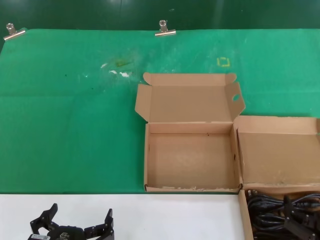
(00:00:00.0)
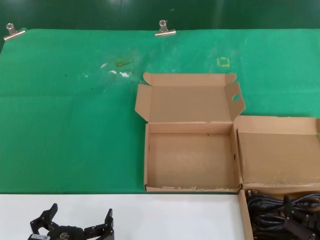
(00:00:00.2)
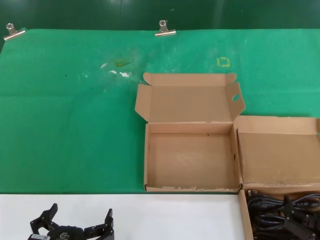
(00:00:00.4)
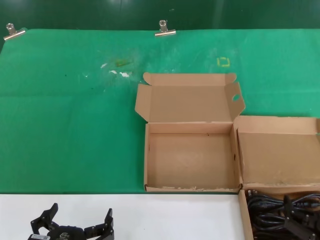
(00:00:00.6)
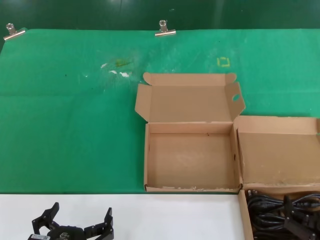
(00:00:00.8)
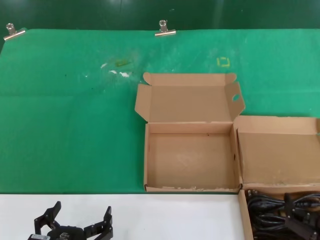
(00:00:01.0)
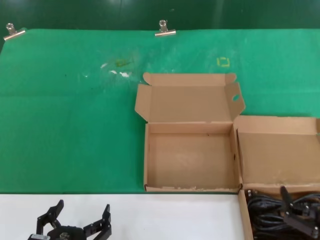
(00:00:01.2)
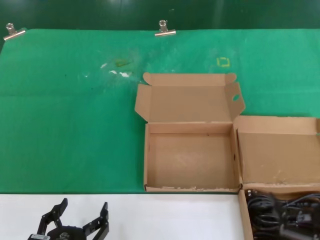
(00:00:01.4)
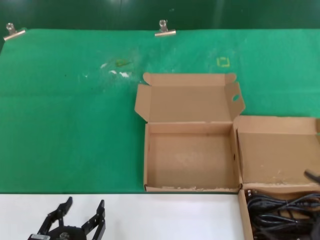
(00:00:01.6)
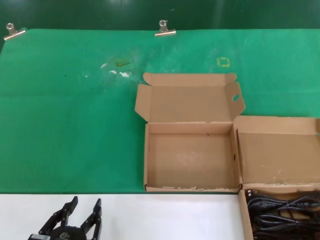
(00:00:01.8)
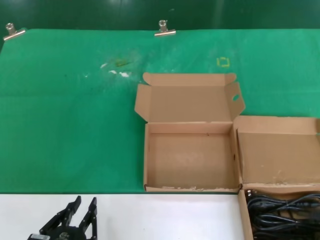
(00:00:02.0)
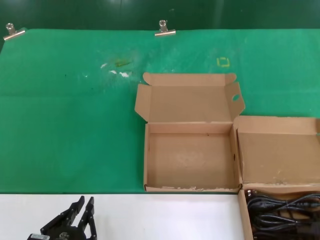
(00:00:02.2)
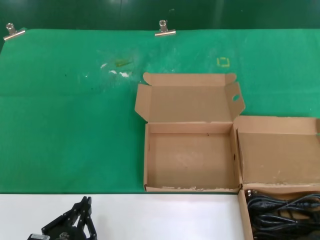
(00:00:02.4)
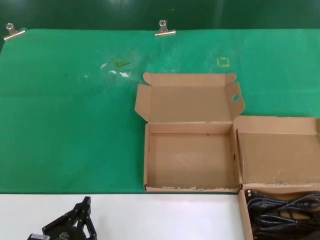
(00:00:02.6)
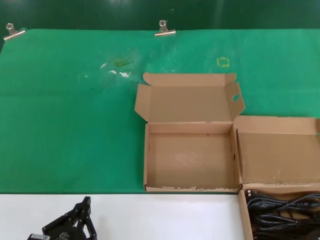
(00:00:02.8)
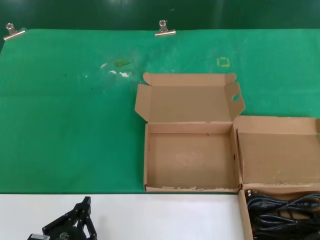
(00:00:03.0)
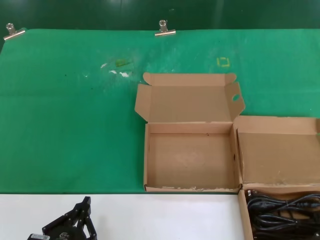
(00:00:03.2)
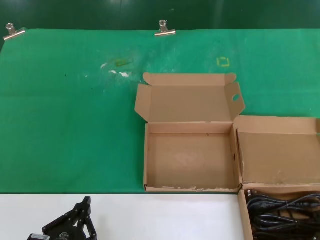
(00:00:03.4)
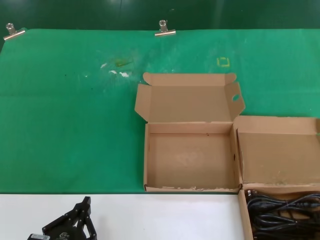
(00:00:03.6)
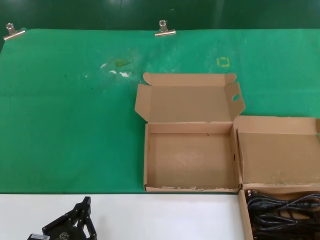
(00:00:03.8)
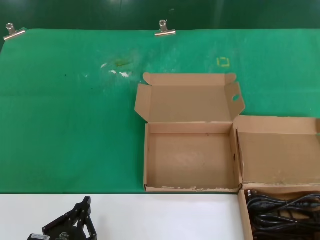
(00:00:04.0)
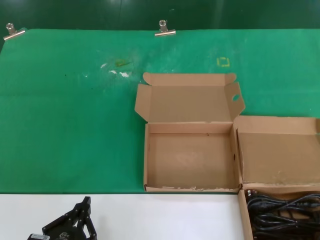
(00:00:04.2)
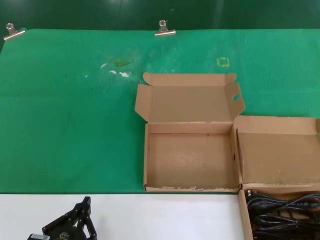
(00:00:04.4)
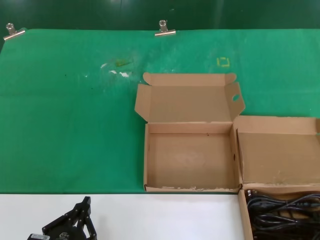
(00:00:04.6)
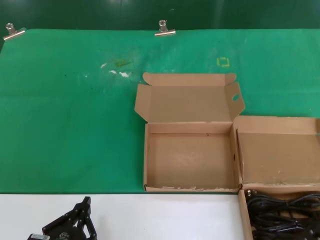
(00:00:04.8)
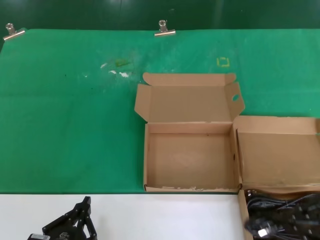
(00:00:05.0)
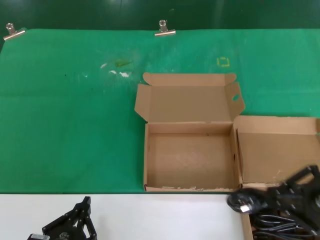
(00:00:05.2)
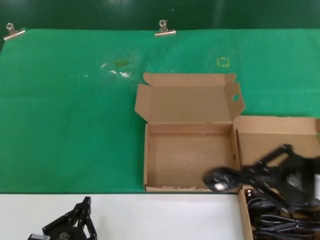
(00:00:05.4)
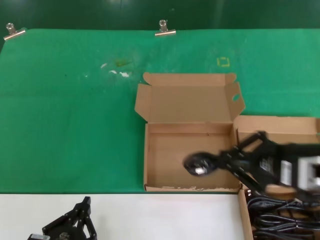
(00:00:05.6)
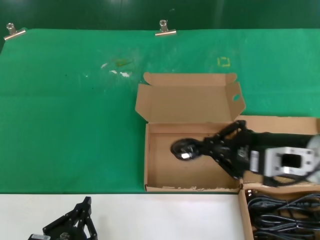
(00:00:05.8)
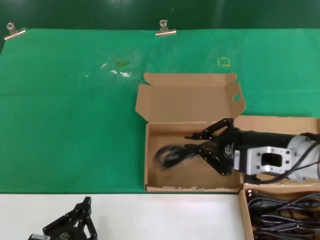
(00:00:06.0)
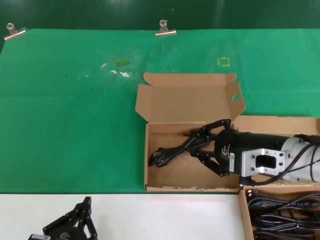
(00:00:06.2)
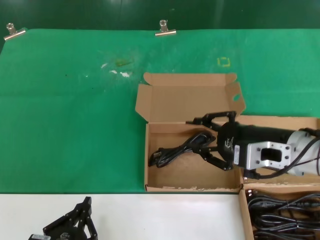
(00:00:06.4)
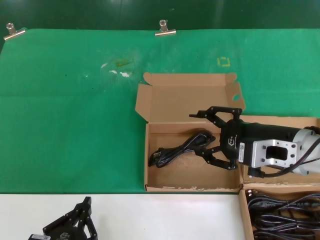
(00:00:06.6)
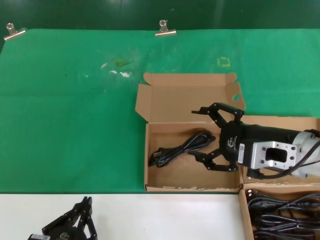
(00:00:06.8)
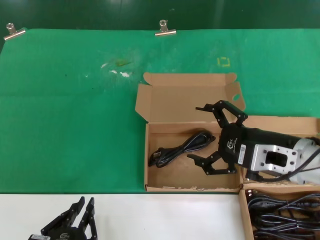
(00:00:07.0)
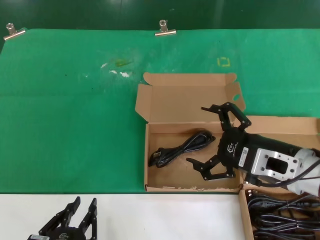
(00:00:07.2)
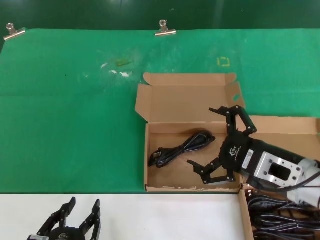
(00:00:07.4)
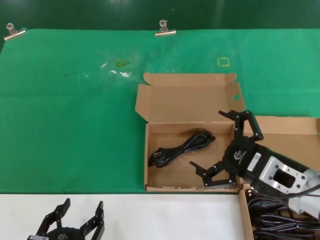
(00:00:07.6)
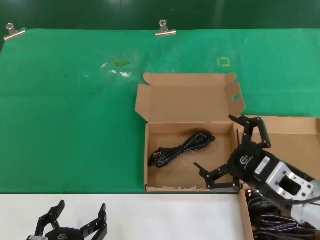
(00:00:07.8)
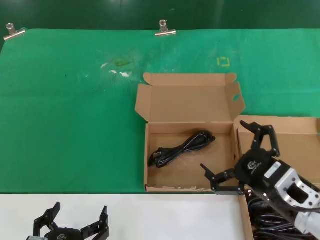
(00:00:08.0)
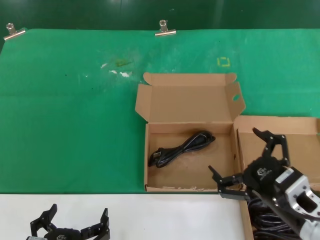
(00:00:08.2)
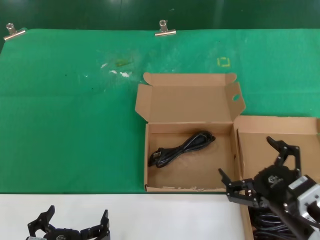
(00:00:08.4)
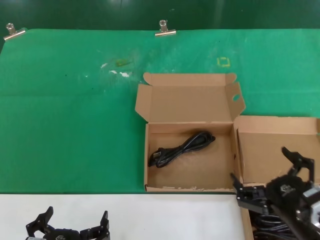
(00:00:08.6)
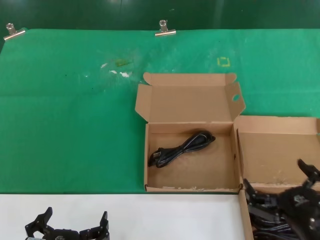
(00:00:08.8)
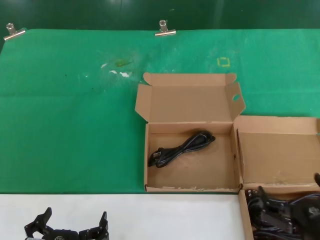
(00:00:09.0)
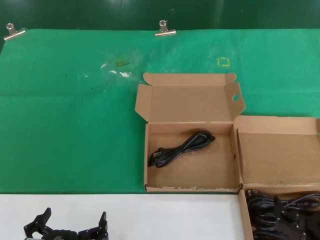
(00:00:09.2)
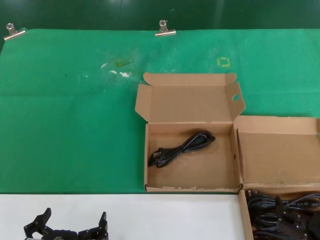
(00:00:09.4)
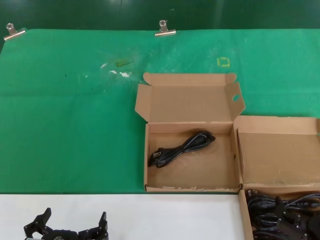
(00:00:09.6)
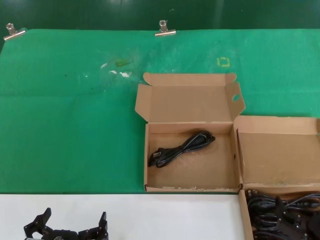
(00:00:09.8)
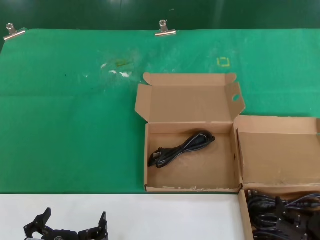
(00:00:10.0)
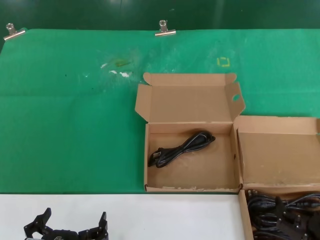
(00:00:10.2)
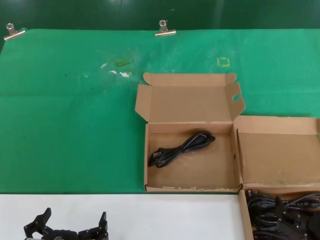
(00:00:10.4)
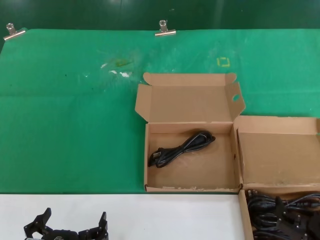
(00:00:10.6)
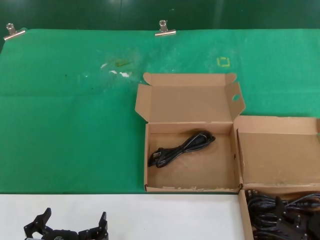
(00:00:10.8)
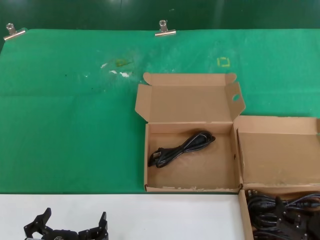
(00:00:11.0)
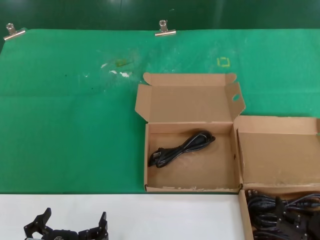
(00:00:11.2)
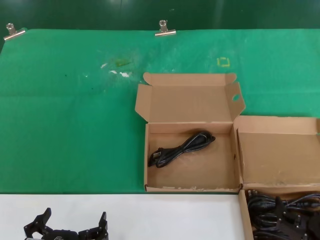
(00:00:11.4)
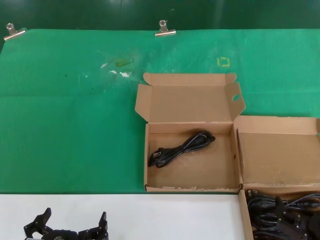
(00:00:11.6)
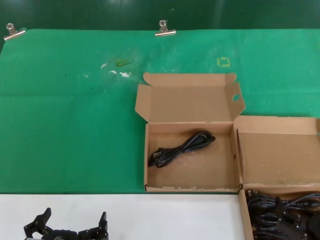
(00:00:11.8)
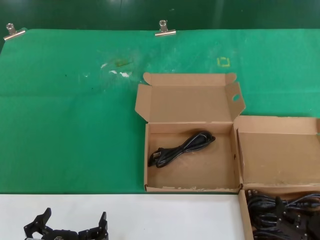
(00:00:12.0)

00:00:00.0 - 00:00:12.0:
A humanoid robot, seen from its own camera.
Task of the whole recording: take the parts from the box containing them and put them into an empty box.
Step, 00:00:00.0 - 00:00:04.2: Grasp the data cable.
Step, 00:00:04.4 - 00:00:07.2: Place the data cable in the another box.
00:00:00.0 - 00:00:01.6: The right hand shifts roughly 10 cm upward and to the right.
00:00:04.4 - 00:00:06.0: The right hand is displaced to the left, forward and upward by approximately 20 cm.
00:00:06.0 - 00:00:07.6: The right hand travels downward by roughly 5 cm.
00:00:07.6 - 00:00:09.0: The right hand moves downward and backward, some 15 cm.
00:00:09.0 - 00:00:10.4: There are only small adjustments of the hands.
00:00:10.4 - 00:00:12.0: Both hands stay about where they are.

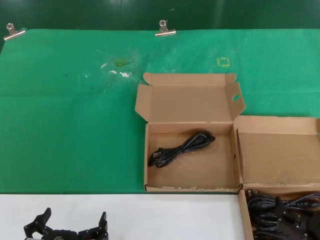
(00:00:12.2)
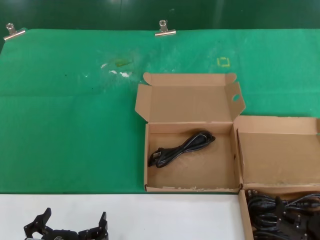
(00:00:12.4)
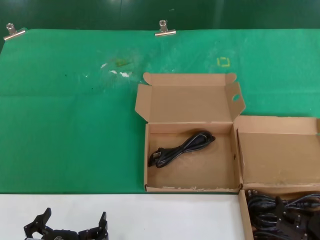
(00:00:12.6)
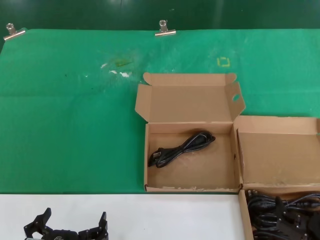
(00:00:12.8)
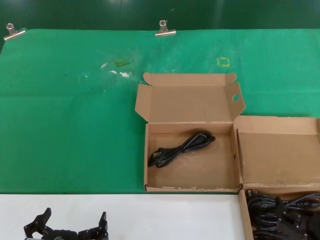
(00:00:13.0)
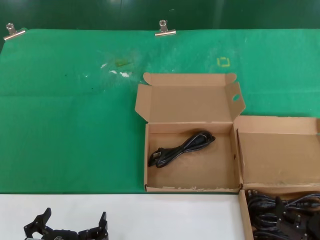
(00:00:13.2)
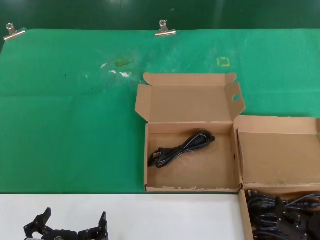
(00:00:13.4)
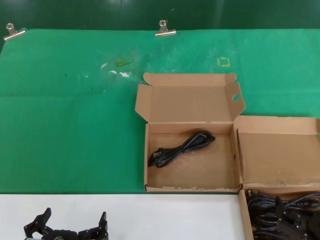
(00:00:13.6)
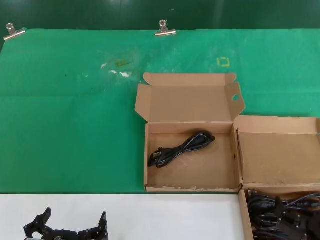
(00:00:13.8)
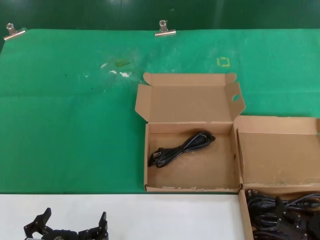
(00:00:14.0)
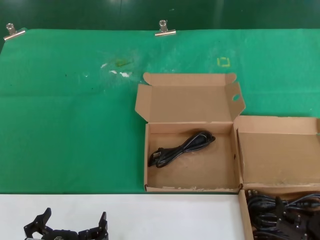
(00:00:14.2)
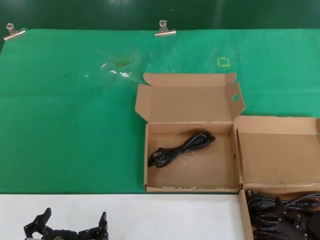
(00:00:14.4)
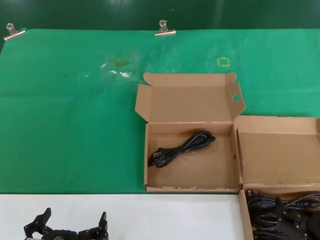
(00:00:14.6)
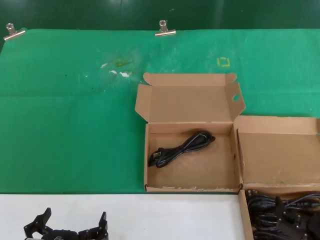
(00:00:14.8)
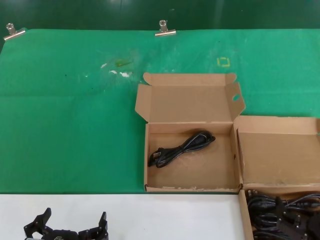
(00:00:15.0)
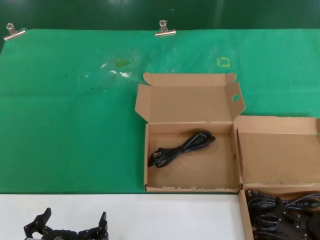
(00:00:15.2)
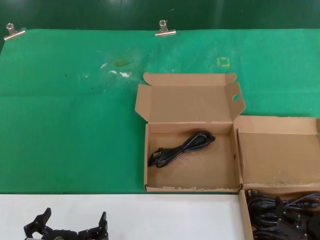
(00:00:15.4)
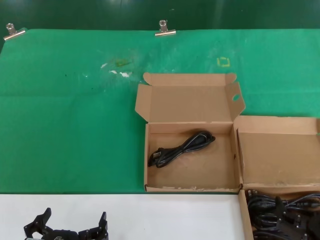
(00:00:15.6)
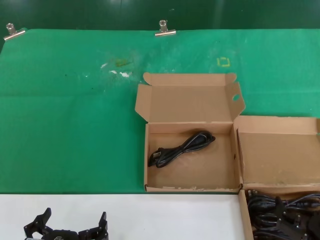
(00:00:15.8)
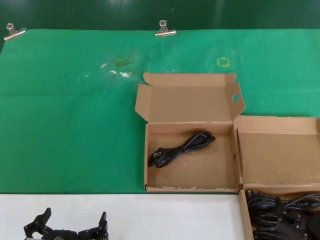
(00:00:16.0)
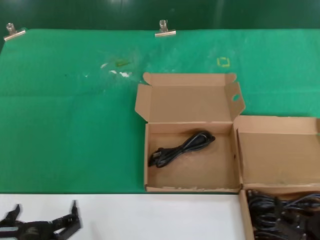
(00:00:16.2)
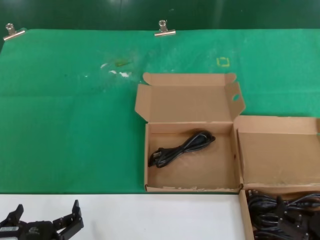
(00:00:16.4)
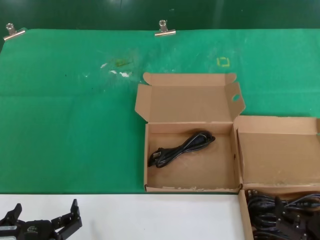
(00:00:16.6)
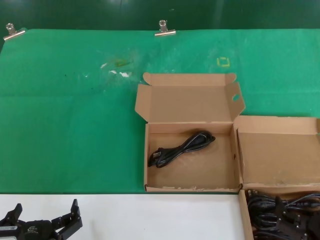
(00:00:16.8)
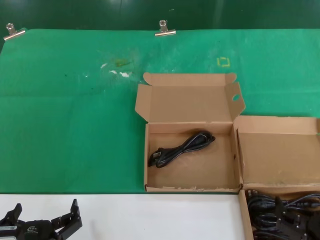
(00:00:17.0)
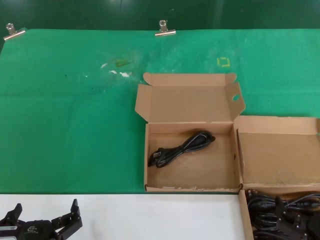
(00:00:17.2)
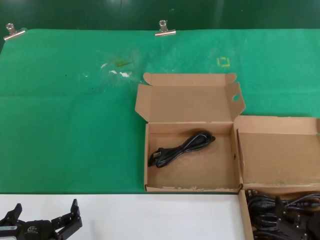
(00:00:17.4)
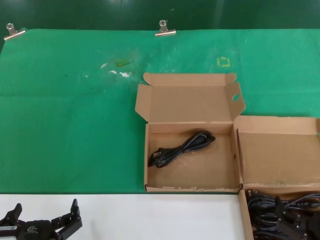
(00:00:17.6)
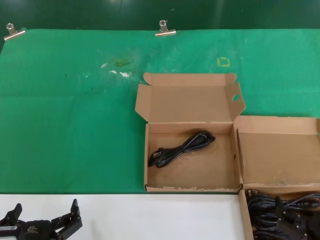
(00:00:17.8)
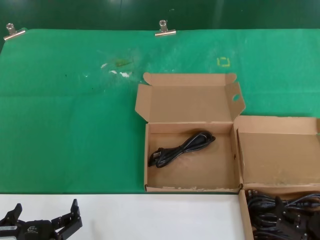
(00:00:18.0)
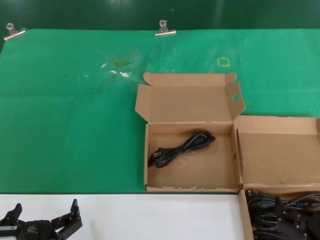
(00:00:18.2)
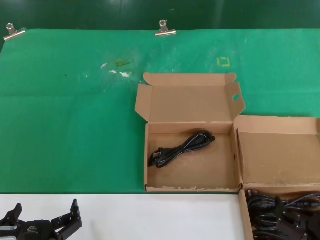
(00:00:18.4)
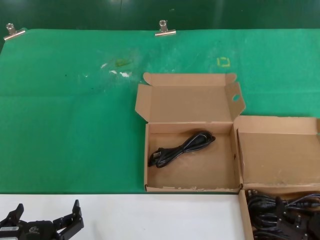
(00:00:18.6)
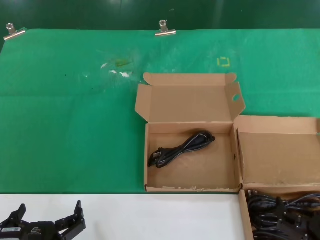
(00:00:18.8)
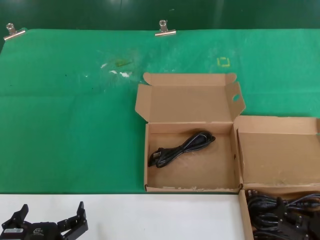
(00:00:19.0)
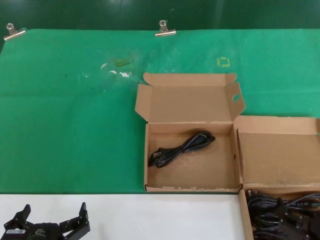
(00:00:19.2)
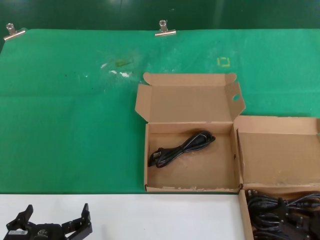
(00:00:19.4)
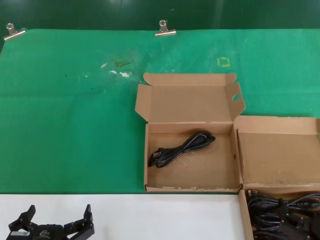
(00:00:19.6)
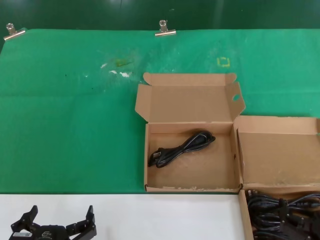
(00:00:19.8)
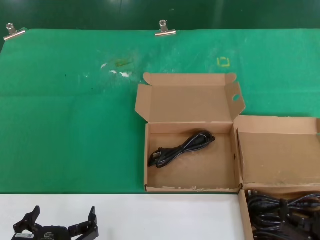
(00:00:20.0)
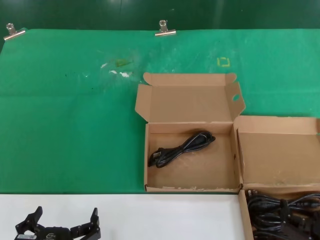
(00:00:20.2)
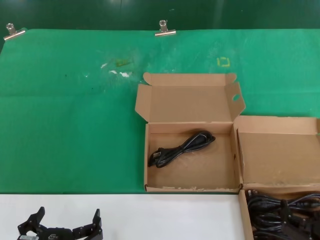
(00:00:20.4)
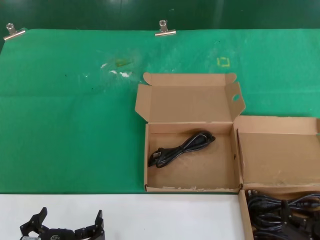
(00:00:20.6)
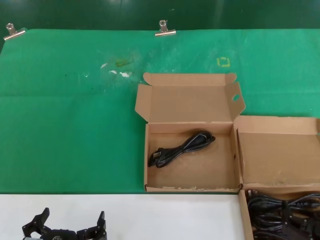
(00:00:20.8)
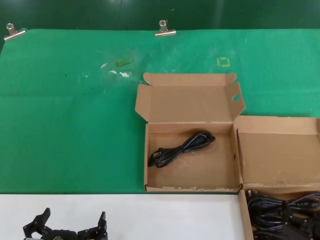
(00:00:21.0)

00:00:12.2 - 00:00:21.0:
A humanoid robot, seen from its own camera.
Task of the whole recording: take the parts from the box containing them and put them into an empty box.
00:00:12.2 - 00:00:15.2: Both hands stay about where they are.
00:00:15.2 - 00:00:16.6: The hands move only a little.
00:00:16.6 - 00:00:19.6: The two hands keep their place.
00:00:19.6 - 00:00:21.0: There are only small adjustments of the hands.
